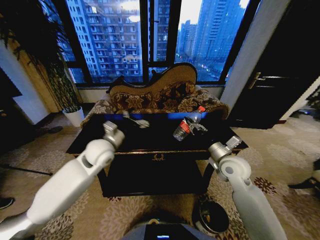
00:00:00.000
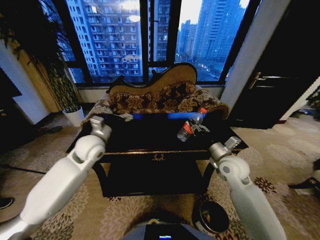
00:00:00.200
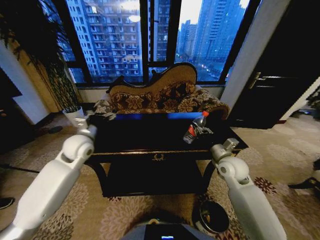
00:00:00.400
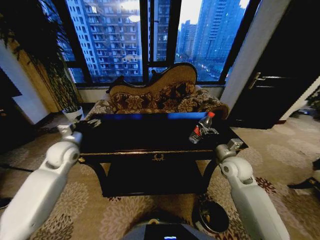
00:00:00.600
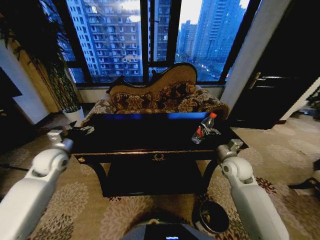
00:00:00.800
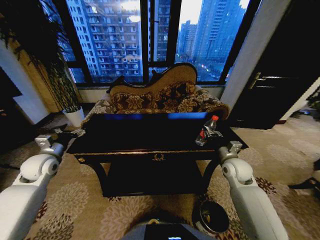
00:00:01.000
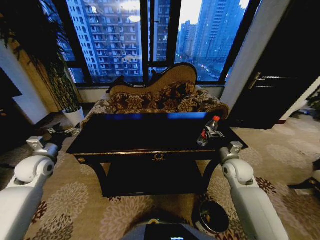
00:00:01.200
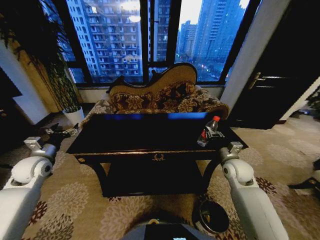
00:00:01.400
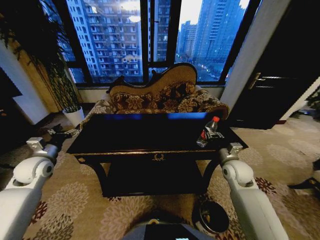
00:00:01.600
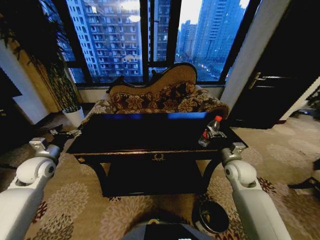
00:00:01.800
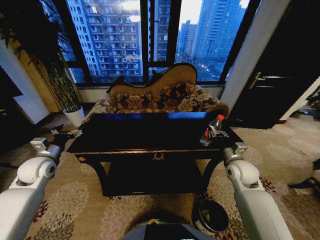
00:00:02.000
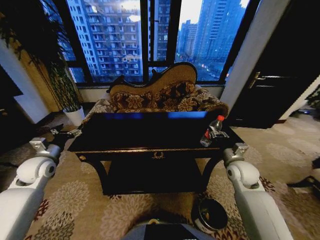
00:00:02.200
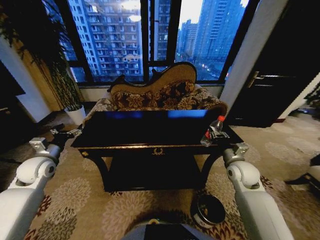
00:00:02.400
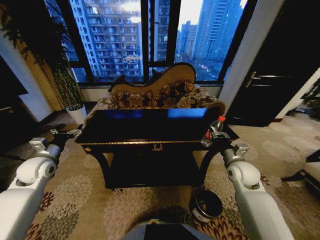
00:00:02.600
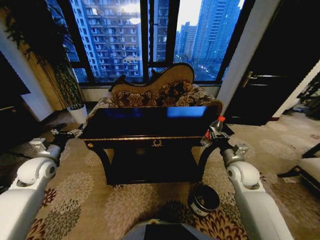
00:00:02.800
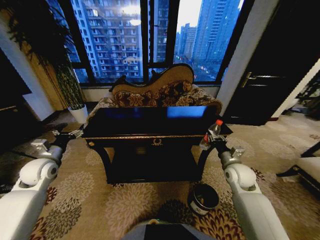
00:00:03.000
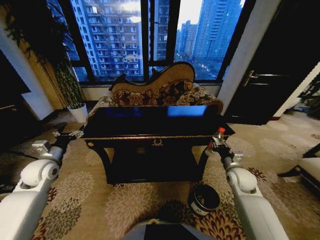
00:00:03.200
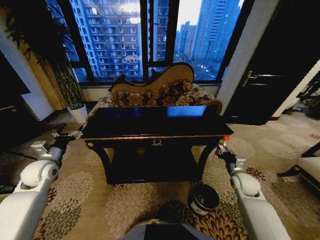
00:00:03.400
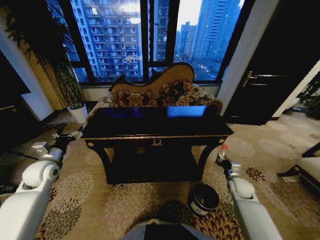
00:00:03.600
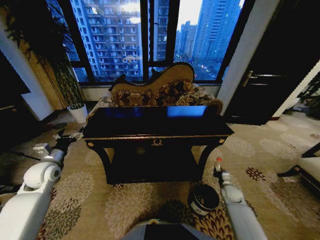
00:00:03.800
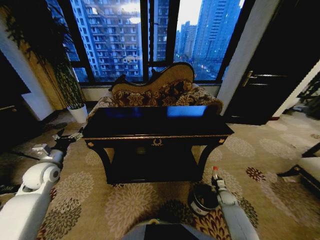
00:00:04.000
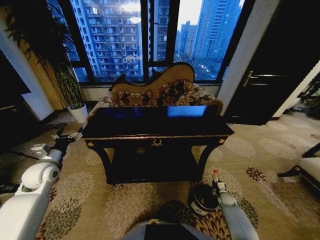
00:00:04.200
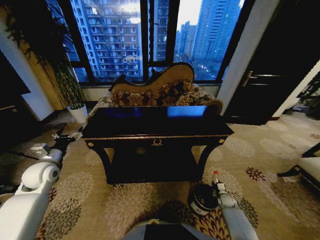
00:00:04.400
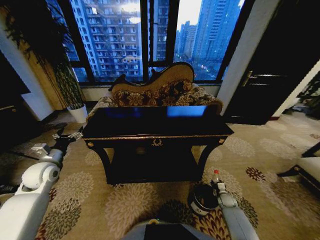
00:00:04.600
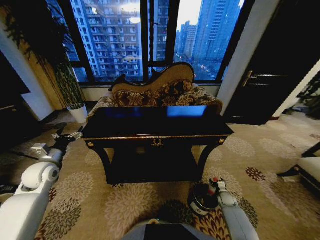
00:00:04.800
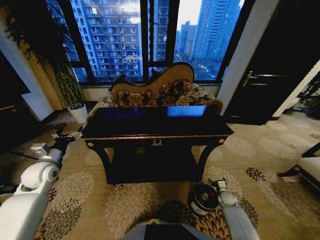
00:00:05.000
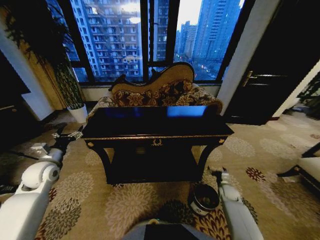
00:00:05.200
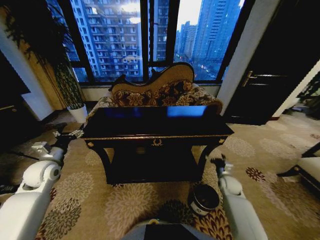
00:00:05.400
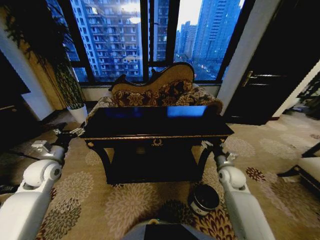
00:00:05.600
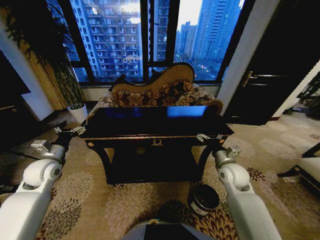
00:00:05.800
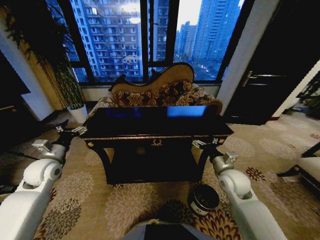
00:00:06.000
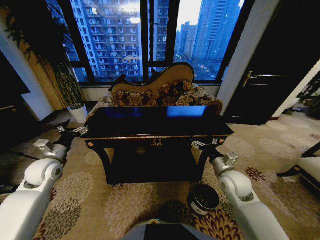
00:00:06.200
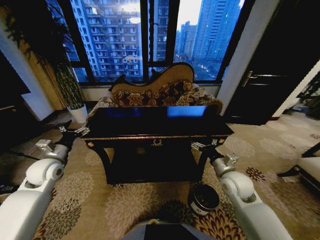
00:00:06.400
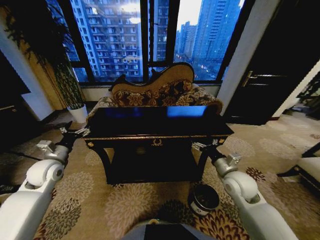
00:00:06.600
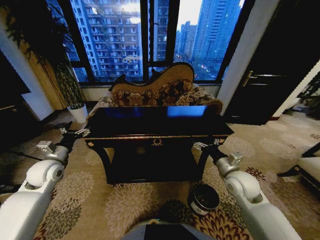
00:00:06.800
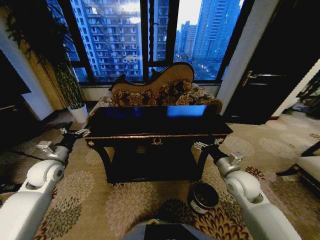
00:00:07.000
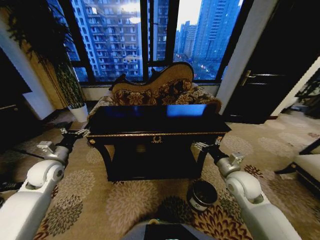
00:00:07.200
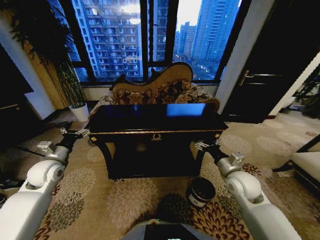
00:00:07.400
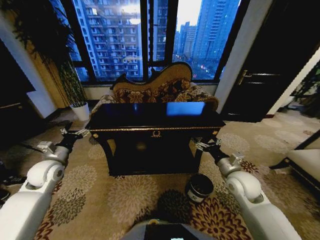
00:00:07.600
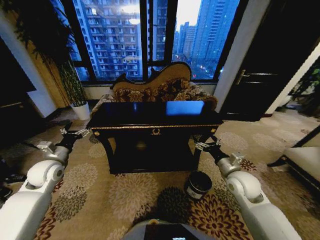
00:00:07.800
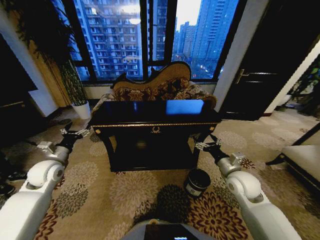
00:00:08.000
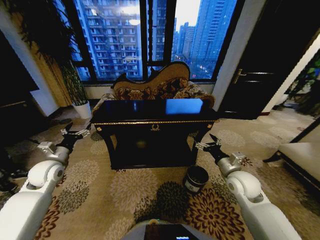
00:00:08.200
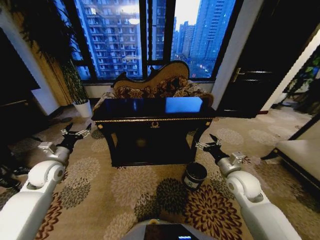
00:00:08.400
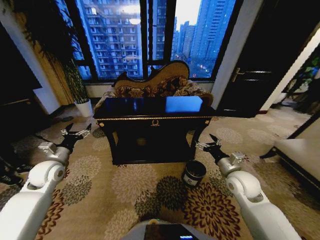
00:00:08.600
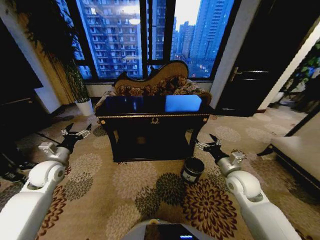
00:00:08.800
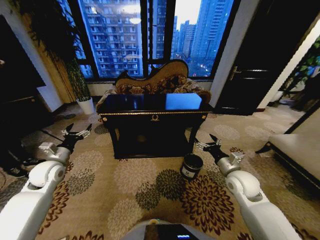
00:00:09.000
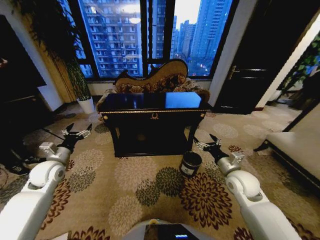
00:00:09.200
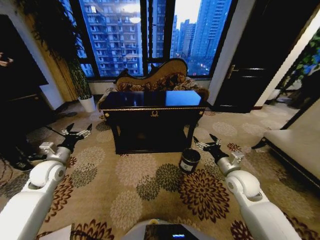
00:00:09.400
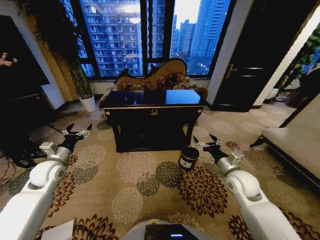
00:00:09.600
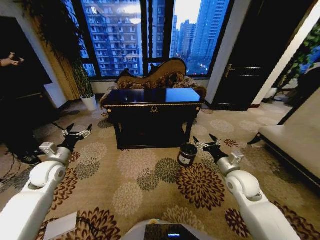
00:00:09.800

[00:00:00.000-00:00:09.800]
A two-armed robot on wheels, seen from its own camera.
Task of the whole recording: Move to the front of the table and place the trash on the table into the trash bin.
00:00:00.000 to 00:00:01.400: The right gripper heads downward and to the right, covering some 10 cm, while the left gripper travels to the left by approximately 25 cm.
00:00:02.800 to 00:00:04.200: The right gripper moves downward, some 35 cm.
00:00:04.200 to 00:00:05.600: The right gripper heads upward, covering some 30 cm, and opens.
00:00:05.600 to 00:00:07.000: The right gripper travels backward and upward by some 10 cm.

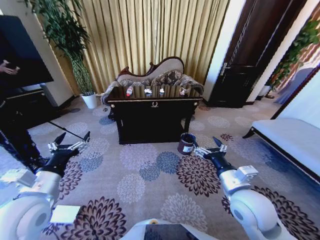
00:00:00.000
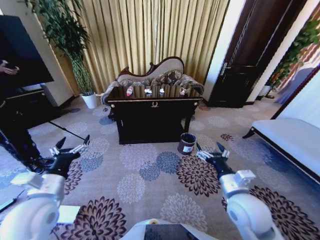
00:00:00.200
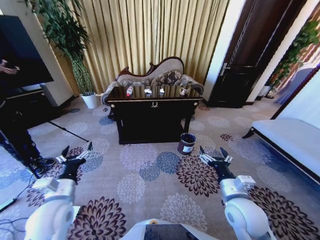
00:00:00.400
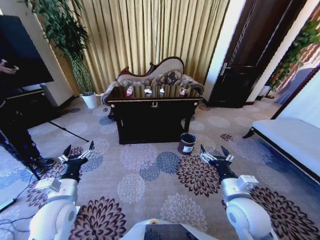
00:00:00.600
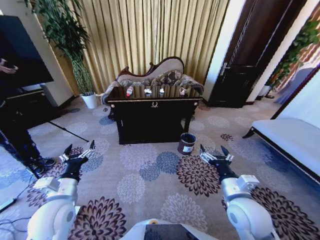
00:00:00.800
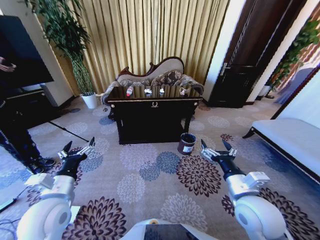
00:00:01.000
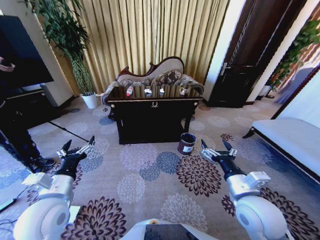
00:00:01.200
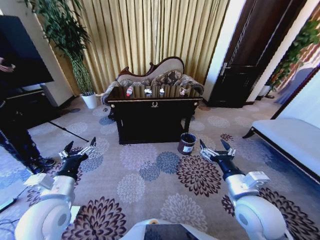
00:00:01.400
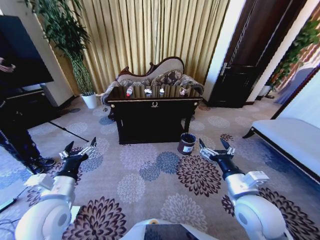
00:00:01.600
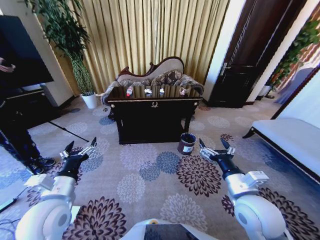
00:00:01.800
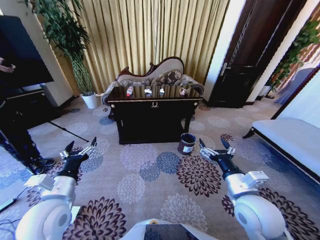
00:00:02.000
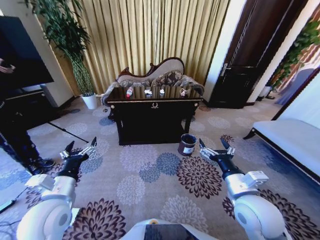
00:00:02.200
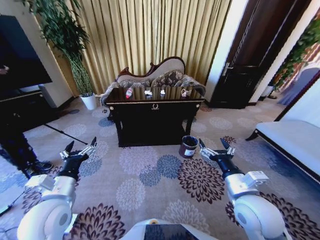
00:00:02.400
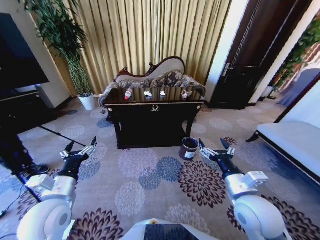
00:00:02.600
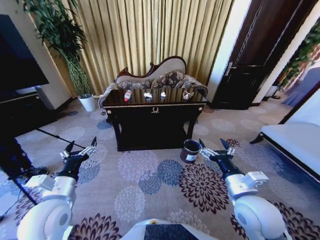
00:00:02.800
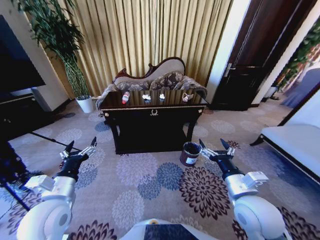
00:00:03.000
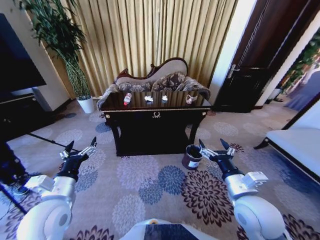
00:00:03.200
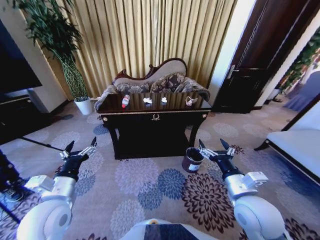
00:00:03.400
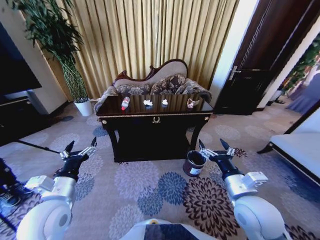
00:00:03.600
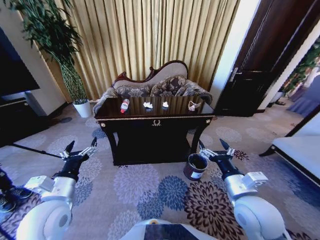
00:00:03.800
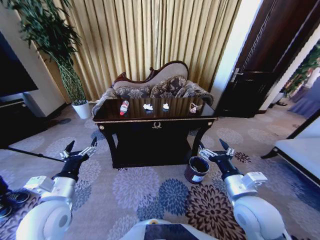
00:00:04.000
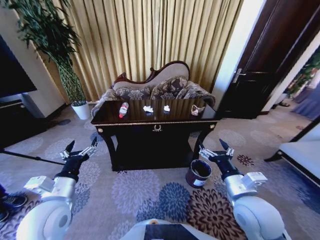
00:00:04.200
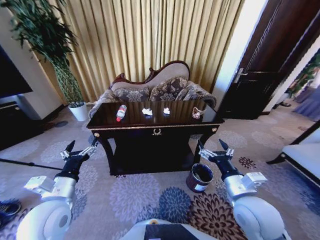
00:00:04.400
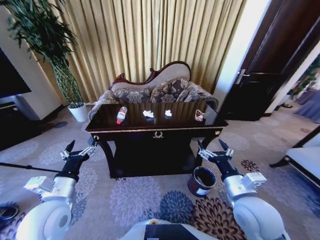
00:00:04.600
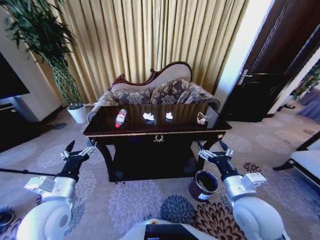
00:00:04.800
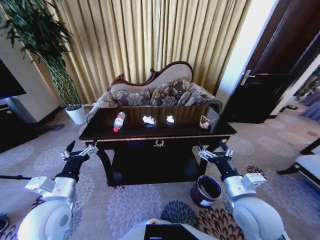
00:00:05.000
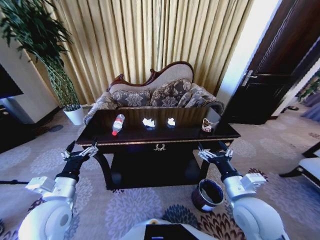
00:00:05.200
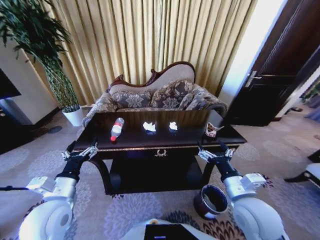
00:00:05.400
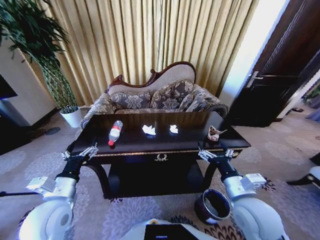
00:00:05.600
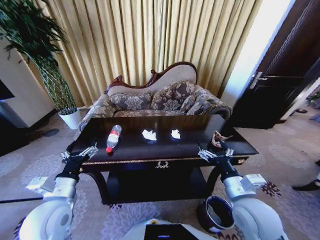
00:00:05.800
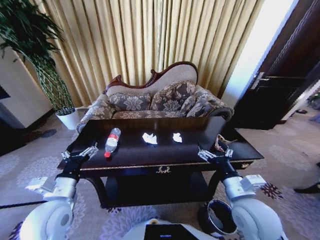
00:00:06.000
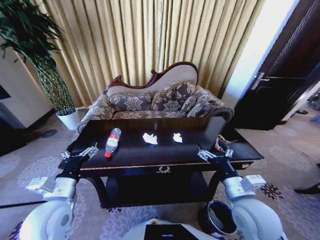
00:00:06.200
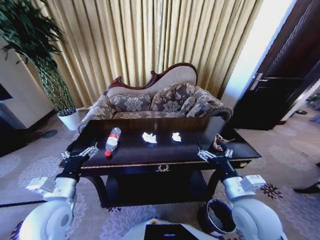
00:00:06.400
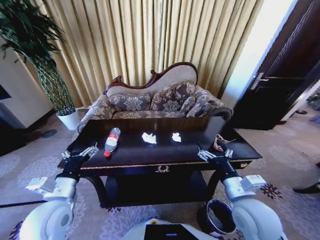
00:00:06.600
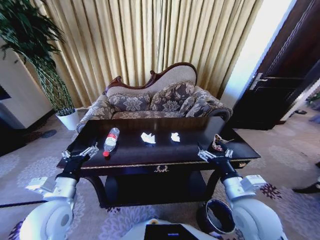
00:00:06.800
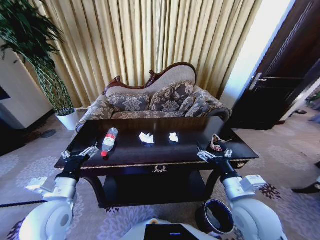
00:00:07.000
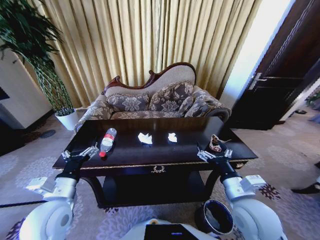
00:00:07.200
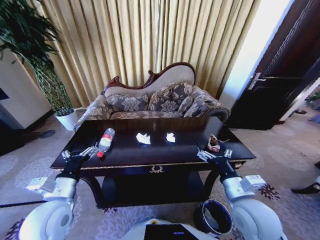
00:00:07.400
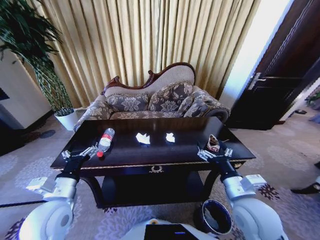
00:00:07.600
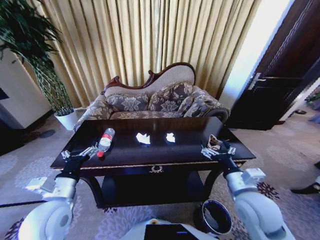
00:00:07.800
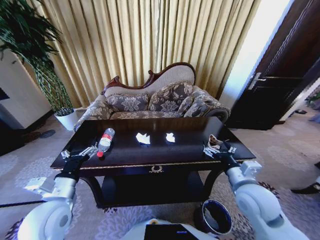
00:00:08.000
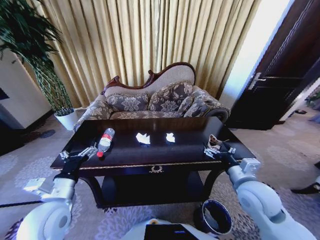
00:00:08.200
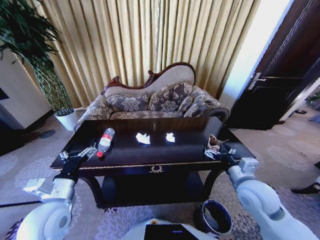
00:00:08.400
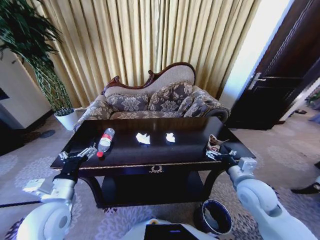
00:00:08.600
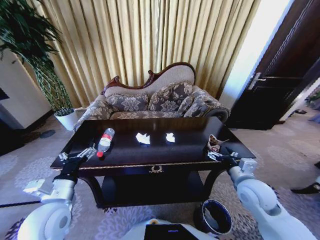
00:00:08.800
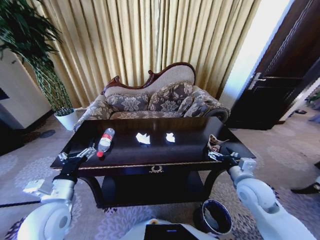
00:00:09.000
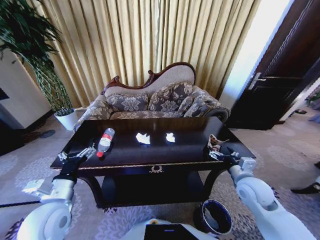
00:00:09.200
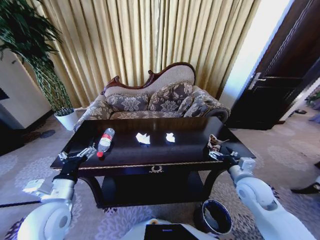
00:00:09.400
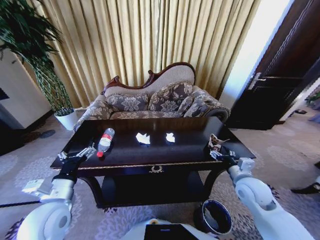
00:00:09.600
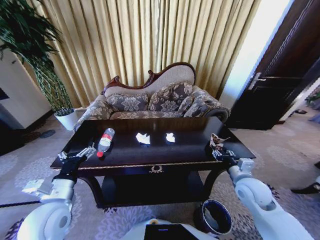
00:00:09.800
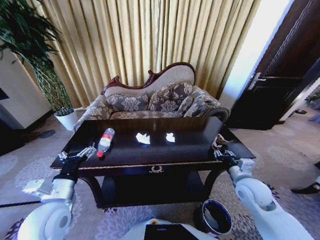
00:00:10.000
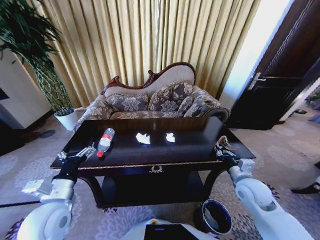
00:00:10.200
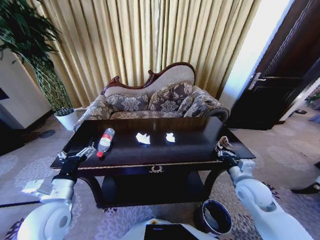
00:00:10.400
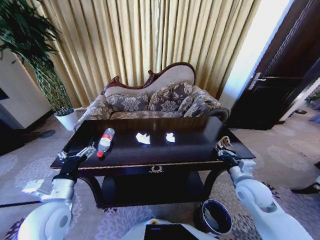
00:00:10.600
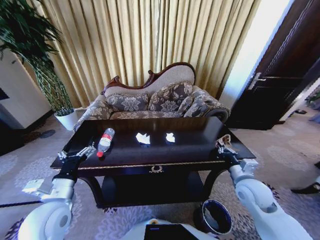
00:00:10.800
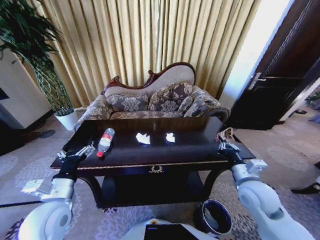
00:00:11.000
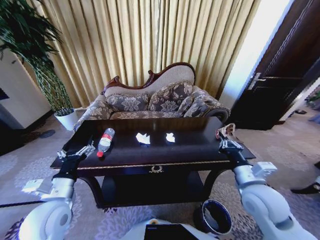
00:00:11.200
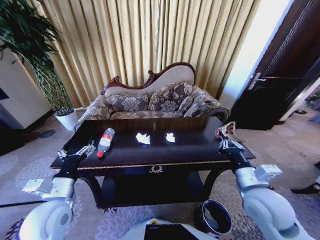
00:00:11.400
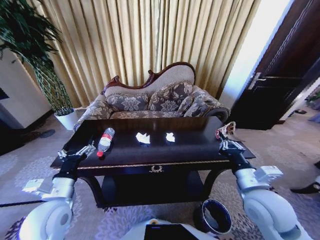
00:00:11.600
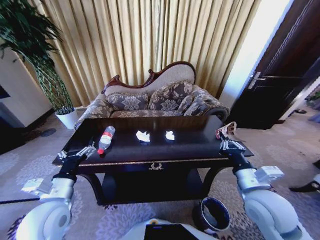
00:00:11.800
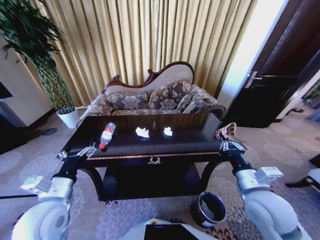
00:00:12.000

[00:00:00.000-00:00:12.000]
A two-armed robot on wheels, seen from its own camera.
Task of the whole recording: Move to the front of the table and place the trash on the table into the trash bin.
00:00:07.600 to 00:00:09.000: The right gripper heads to the right and forward, covering about 10 cm.
00:00:09.000 to 00:00:10.400: The right gripper closes its fingers.
00:00:10.400 to 00:00:12.000: The right gripper shifts approximately 10 cm upward, backward and to the left.

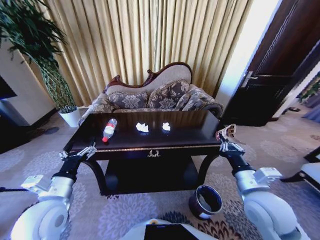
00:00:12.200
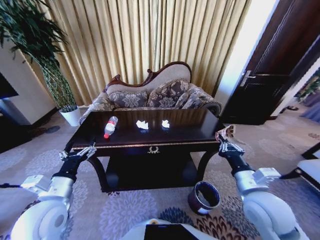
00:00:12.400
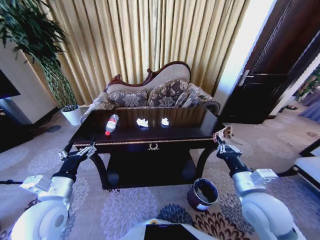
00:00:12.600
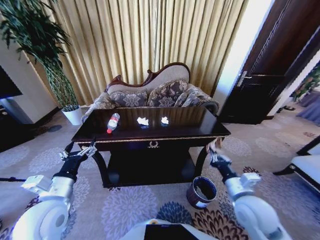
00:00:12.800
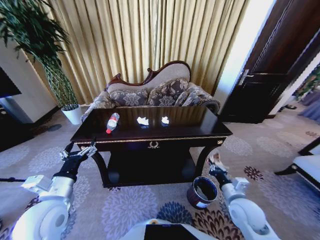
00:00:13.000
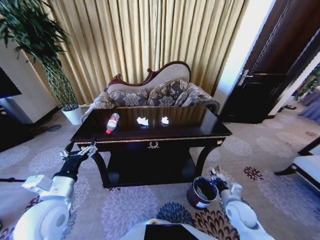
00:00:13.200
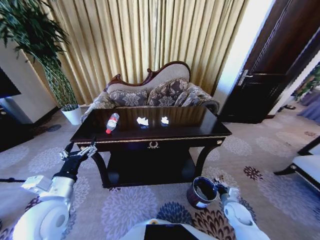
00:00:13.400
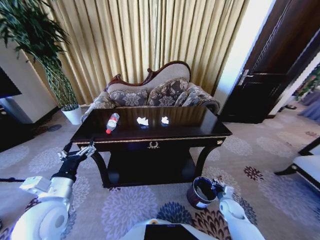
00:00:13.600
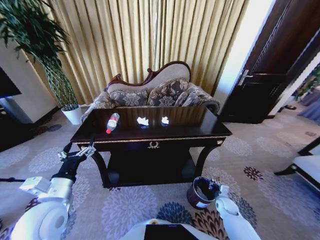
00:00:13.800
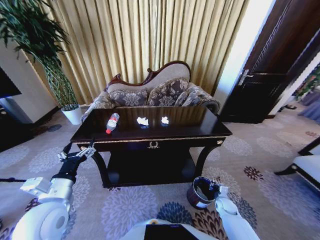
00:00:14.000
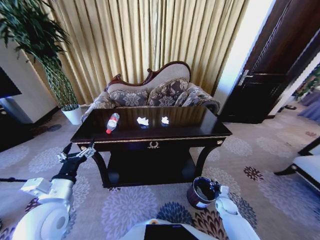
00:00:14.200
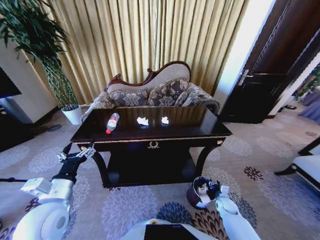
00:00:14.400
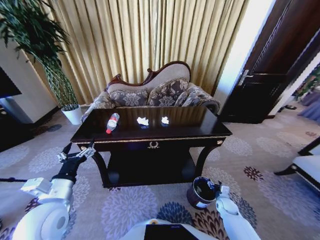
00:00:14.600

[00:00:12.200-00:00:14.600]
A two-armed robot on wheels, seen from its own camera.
Task of the whole recording: Move to the front of the table and place the trash on the table into the trash bin.
00:00:12.200 to 00:00:13.400: The right gripper moves downward, roughly 30 cm.
00:00:13.400 to 00:00:14.600: The right gripper goes approximately 5 cm downward, and opens its fingers.
